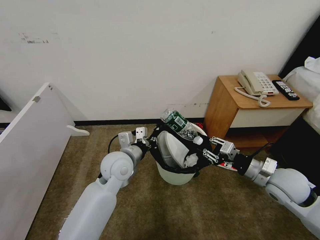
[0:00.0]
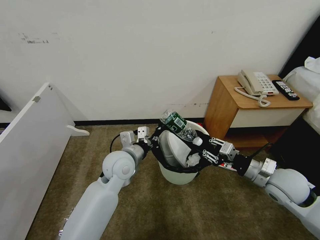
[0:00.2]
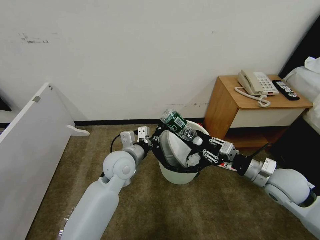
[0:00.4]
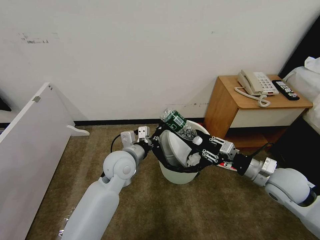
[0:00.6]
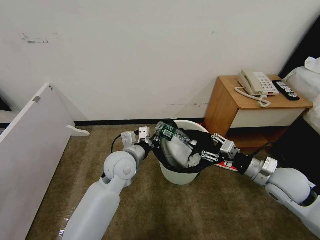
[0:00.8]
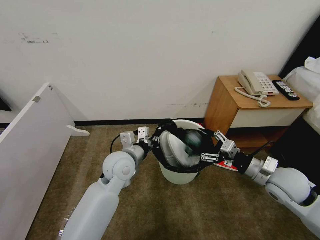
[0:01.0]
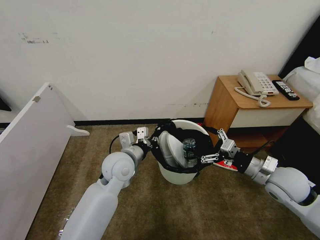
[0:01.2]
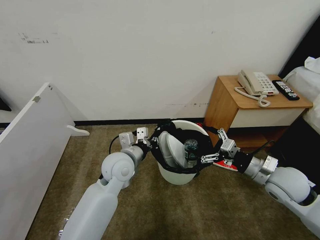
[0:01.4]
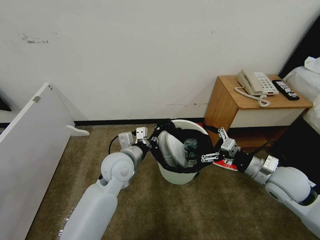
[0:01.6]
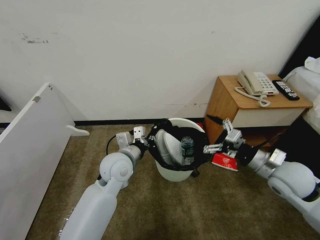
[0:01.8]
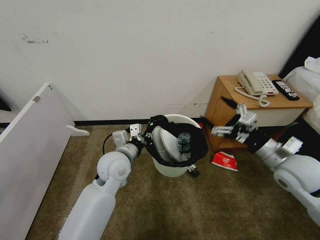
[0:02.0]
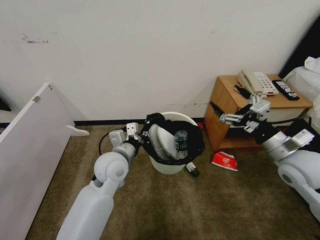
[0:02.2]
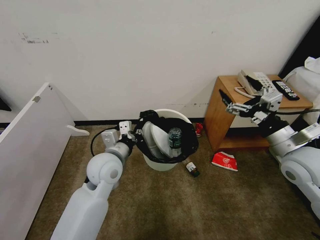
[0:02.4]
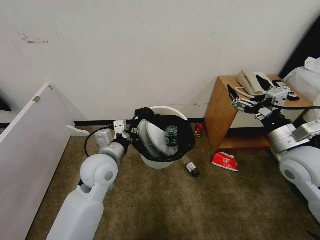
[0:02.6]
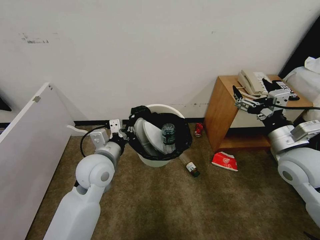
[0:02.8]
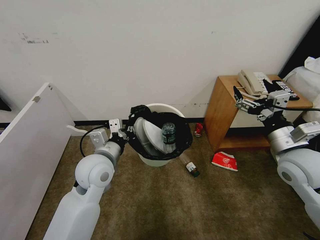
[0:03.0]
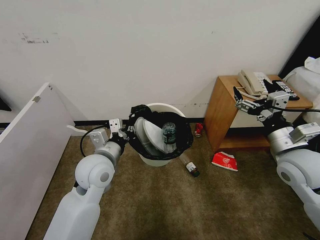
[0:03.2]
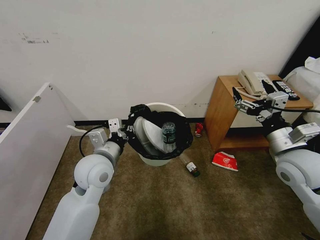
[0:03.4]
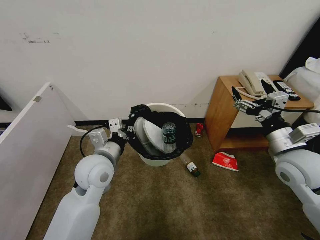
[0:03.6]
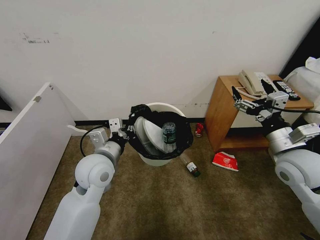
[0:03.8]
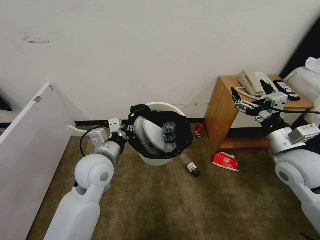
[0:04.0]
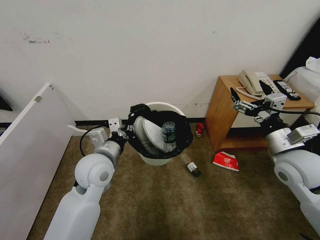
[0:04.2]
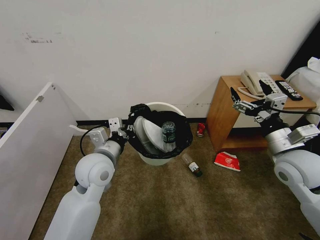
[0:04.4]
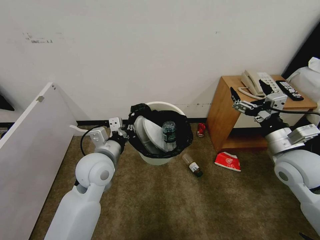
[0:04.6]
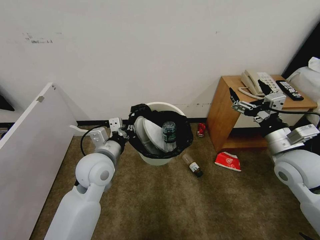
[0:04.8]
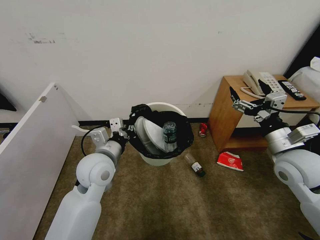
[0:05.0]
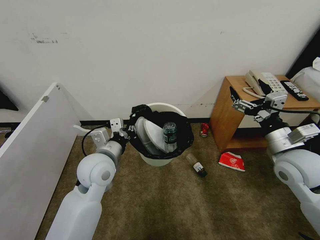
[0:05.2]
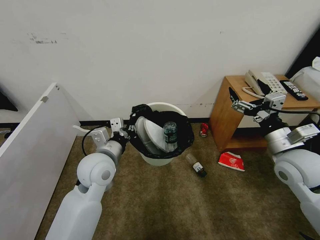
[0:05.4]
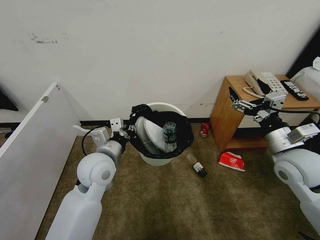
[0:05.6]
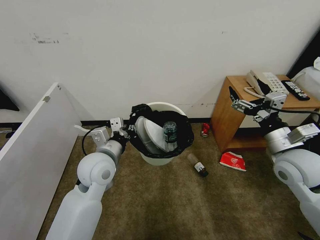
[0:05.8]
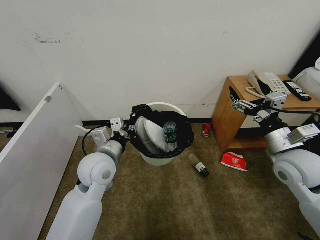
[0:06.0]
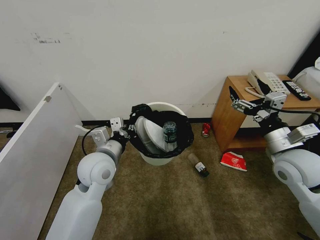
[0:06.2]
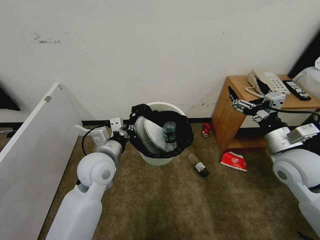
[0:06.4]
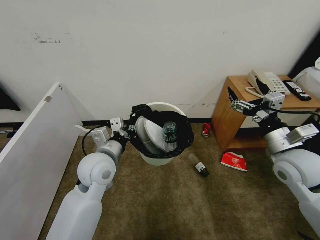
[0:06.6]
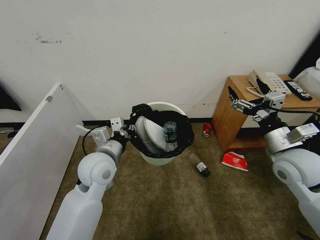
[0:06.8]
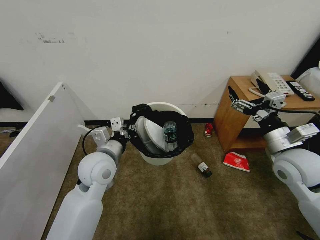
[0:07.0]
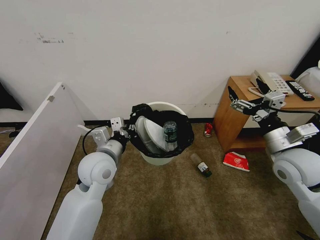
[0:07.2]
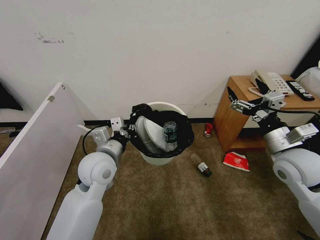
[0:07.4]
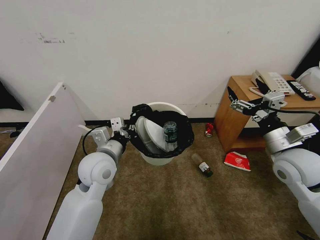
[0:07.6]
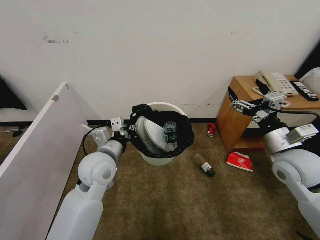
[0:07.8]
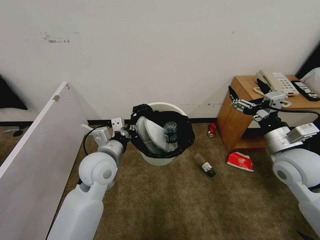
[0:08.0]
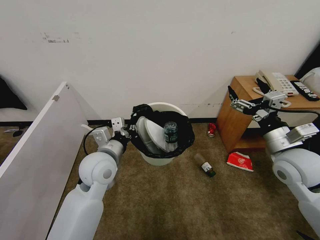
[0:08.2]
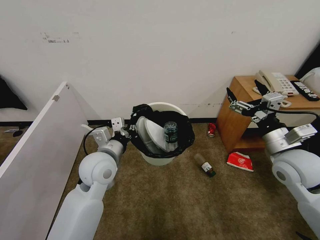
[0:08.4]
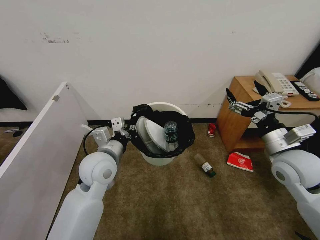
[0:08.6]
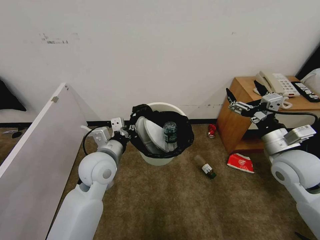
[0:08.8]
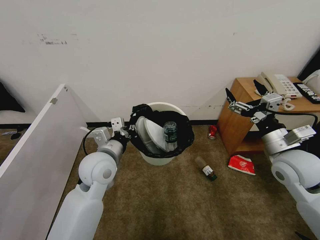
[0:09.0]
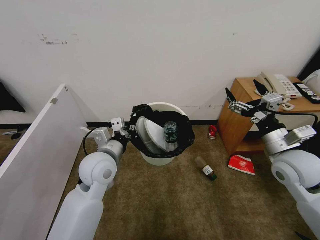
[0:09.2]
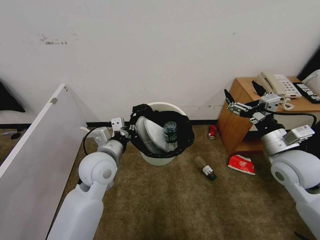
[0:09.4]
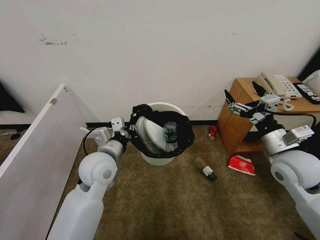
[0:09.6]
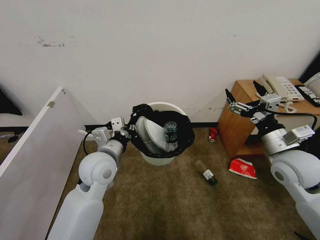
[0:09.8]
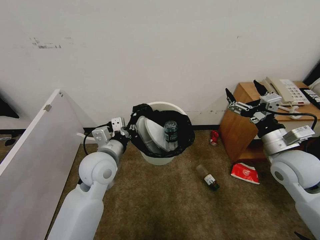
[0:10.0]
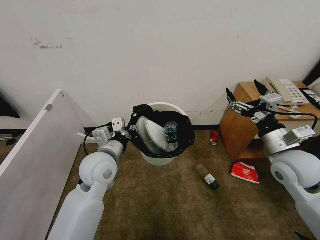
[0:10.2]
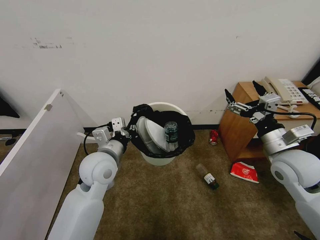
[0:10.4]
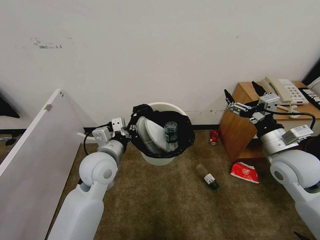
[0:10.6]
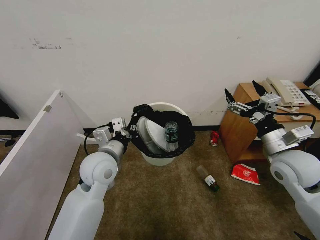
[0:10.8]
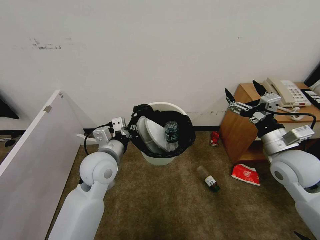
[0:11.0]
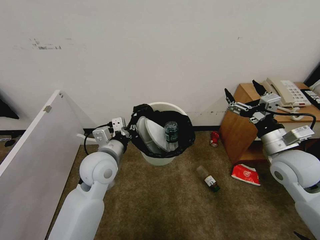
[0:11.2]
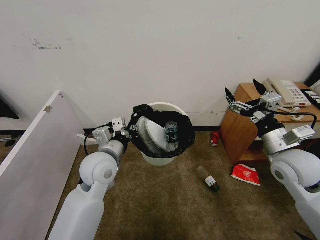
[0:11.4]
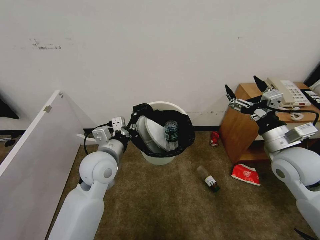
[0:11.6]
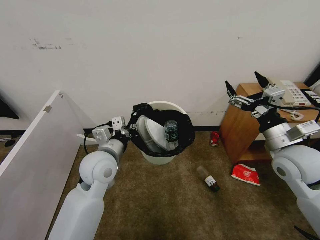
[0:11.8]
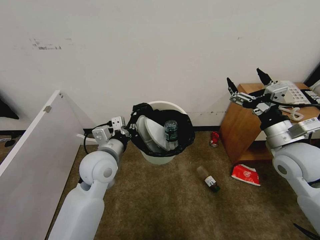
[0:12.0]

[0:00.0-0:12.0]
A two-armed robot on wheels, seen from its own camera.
Task of the whole recording: Pick up the trash bin, then pick up the garbage from the floor and place it into the trash bin.
0:00.0 to 0:01.6: The right gripper opens up.
0:01.6 to 0:03.0: The right gripper heads upward, covering some 10 cm; the left gripper shifts by approximately 5 cm.
0:03.0 to 0:04.4: Both grippers stay about where they are.
0:04.4 to 0:10.4: Both grippers stay put.
0:10.4 to 0:12.0: The grippers stay close to where they were, moving slightly.

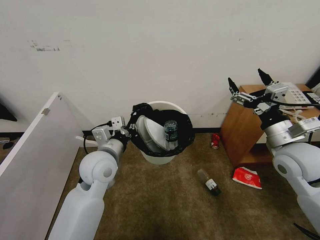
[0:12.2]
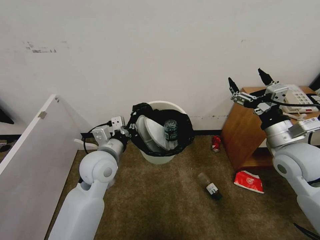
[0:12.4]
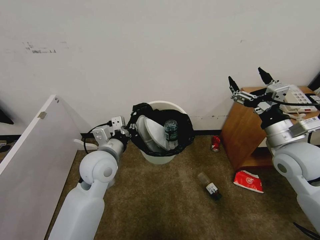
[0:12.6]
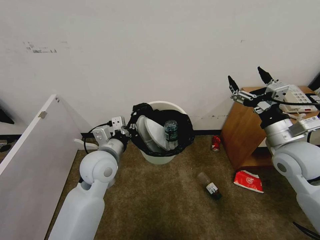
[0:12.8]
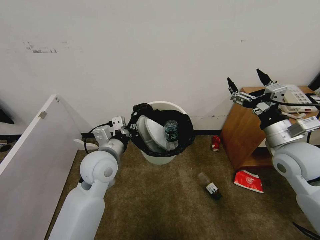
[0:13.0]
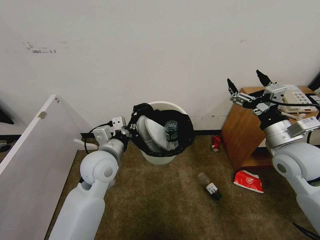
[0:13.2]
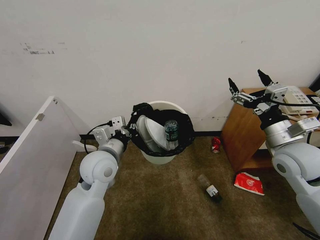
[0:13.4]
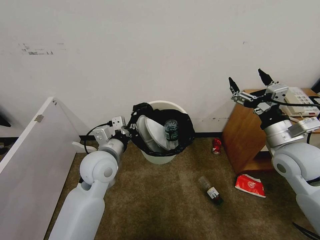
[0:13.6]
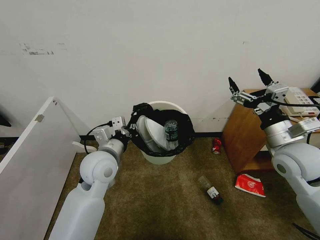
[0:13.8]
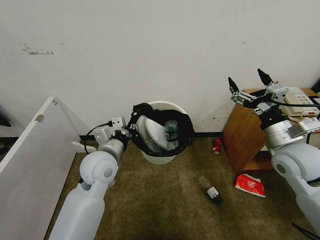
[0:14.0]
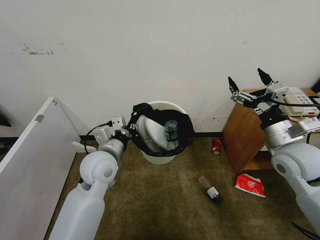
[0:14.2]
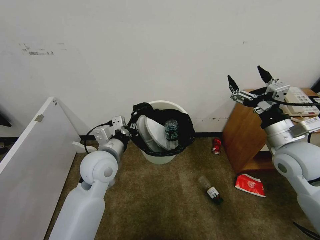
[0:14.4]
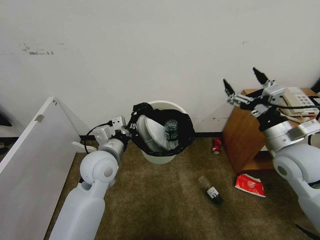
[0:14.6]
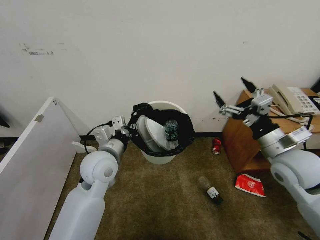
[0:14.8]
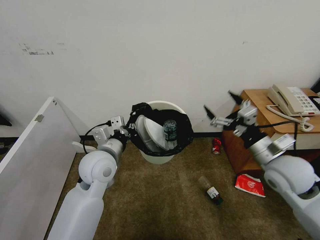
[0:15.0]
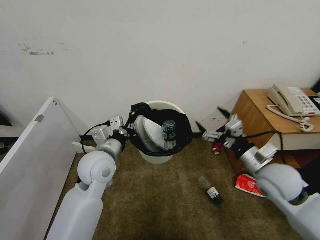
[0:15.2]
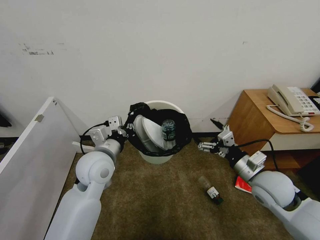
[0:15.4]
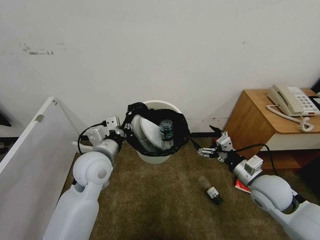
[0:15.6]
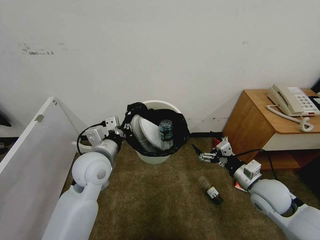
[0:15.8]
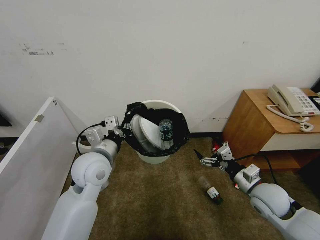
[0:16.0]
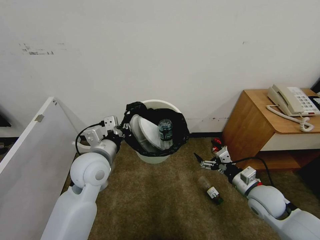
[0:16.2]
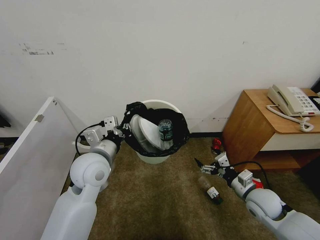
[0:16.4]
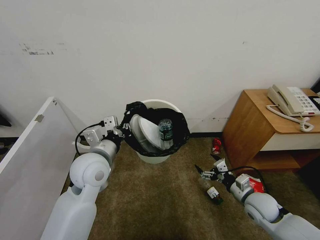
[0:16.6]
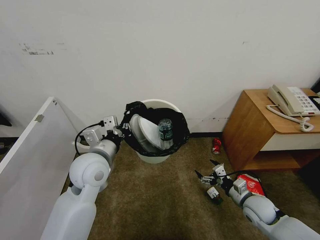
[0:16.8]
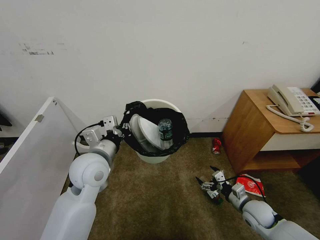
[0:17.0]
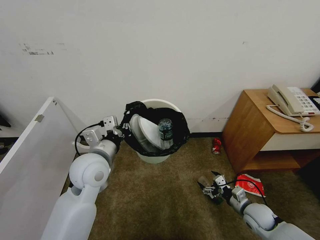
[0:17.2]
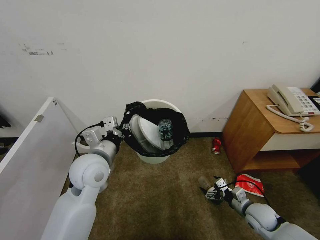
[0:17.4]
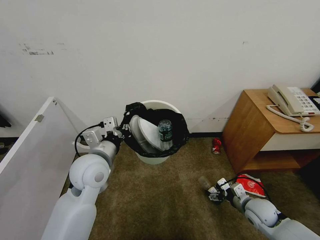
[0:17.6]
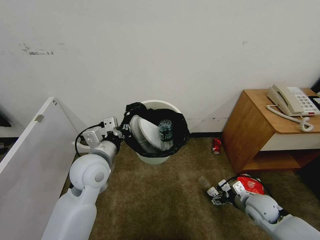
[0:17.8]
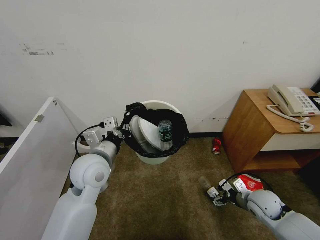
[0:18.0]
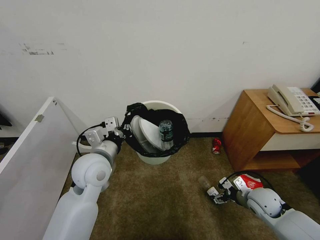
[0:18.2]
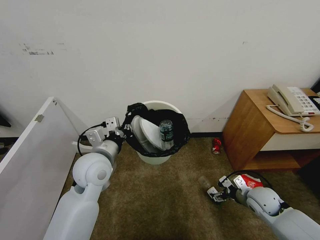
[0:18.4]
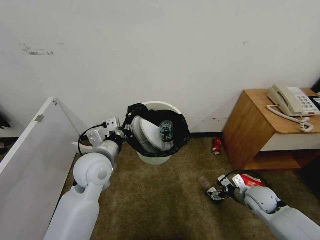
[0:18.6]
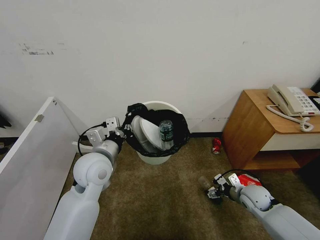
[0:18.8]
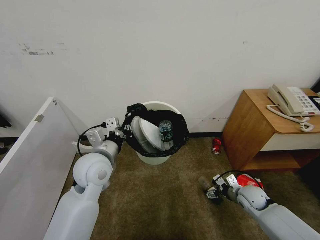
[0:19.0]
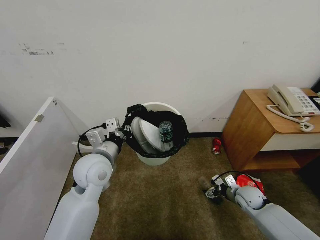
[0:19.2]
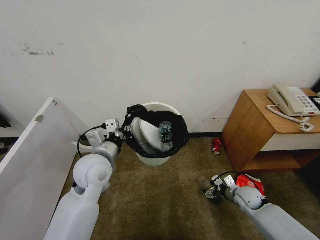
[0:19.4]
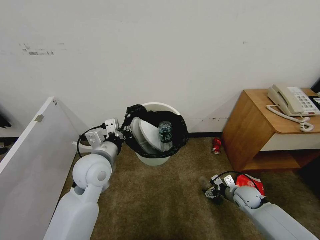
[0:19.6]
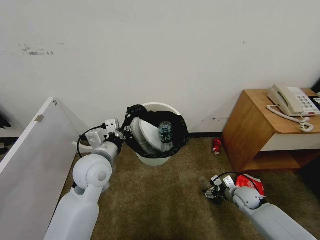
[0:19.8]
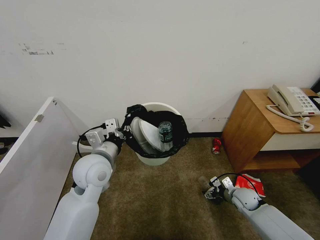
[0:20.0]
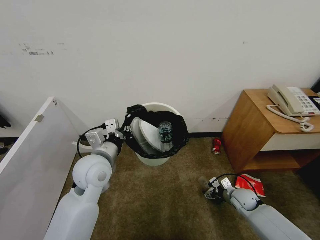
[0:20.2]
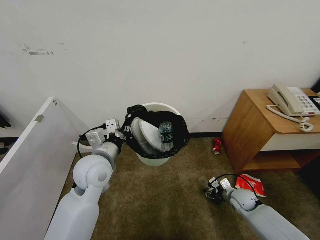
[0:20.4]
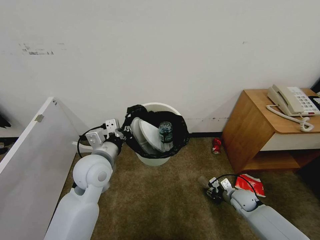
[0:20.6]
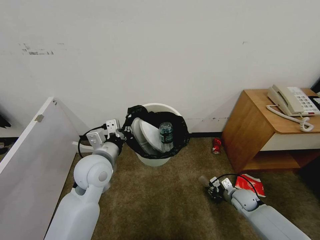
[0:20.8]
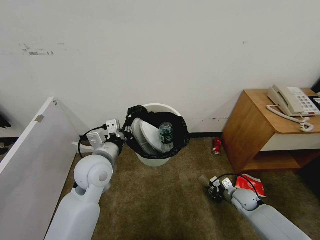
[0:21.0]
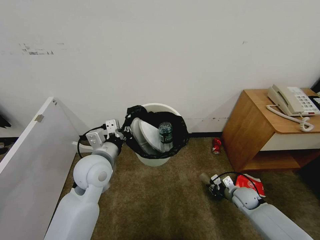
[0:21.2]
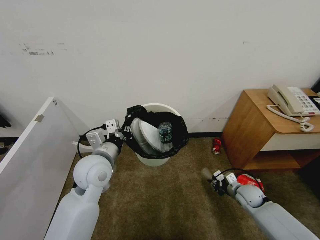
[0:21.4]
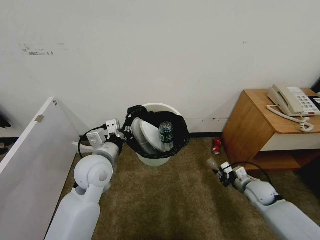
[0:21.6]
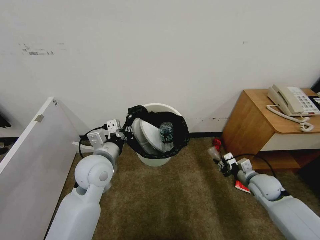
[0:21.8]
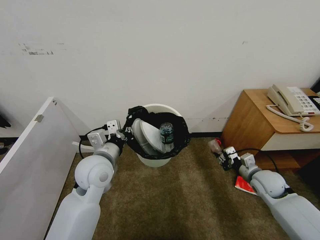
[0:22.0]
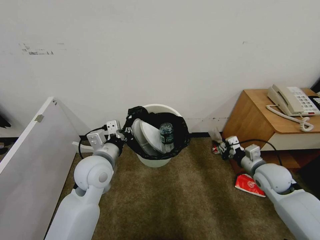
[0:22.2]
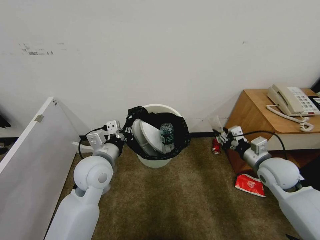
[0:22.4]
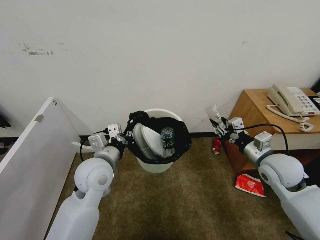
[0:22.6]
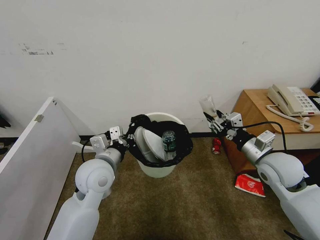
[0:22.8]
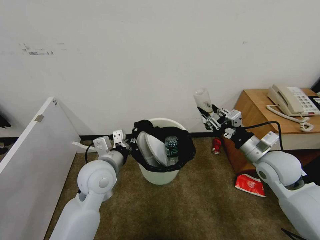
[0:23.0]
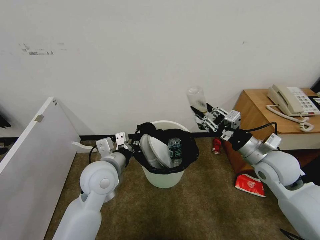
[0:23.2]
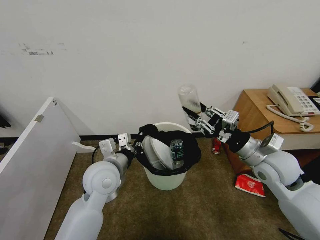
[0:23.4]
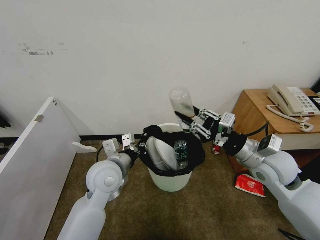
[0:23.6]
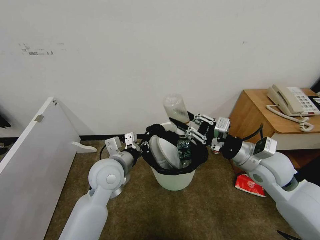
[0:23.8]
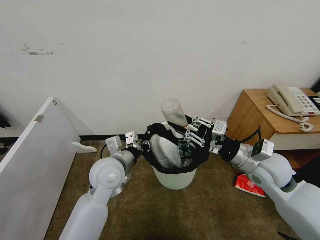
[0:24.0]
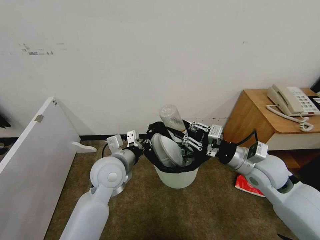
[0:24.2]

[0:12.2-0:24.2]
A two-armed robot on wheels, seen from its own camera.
Task of the whole recording: Pick up the trash bin, then pick up the garbage from the floor and place it into the trash bin.
0:12.2 to 0:13.8: The two grippers keep their place.
0:13.8 to 0:15.2: The right gripper moves downward, approximately 5 cm.
0:15.2 to 0:16.6: The right gripper goes some 15 cm downward.
0:18.2 to 0:19.8: The right gripper is displaced downward by approximately 10 cm.
0:19.8 to 0:21.2: The right gripper closes its fingers.
0:21.2 to 0:22.6: The right gripper moves upward, about 25 cm.
0:22.6 to 0:24.2: The right gripper is displaced to the left by about 5 cm.
